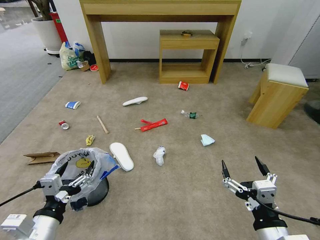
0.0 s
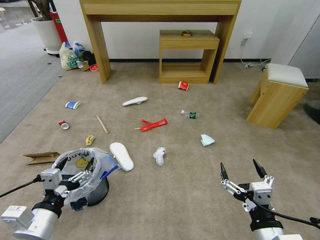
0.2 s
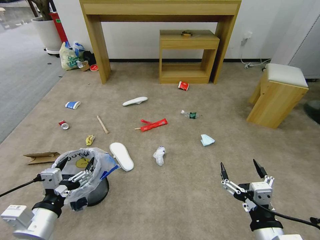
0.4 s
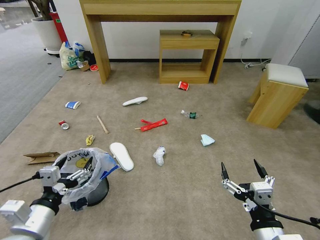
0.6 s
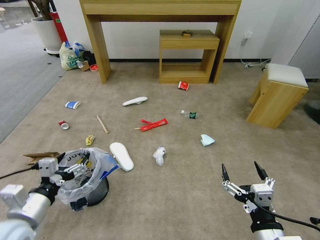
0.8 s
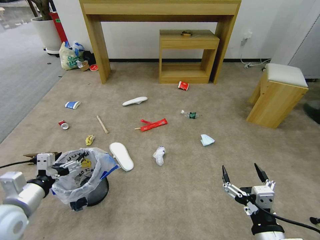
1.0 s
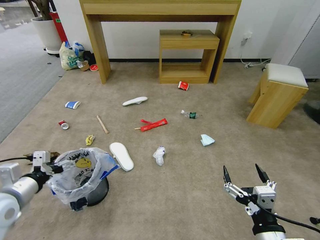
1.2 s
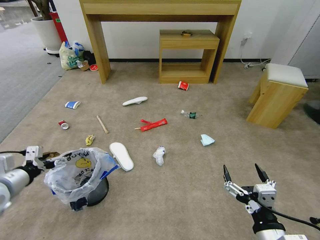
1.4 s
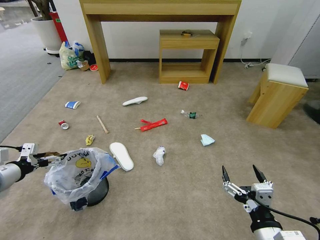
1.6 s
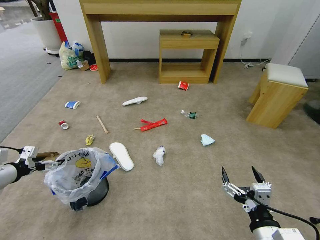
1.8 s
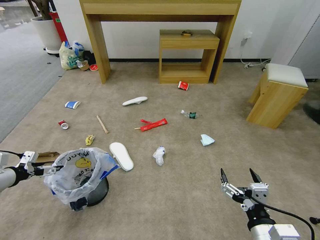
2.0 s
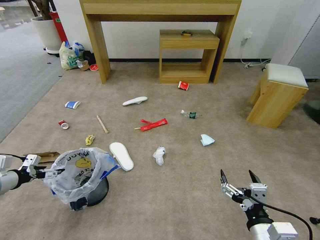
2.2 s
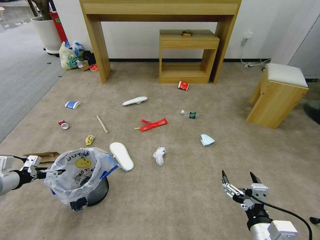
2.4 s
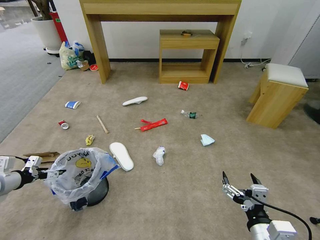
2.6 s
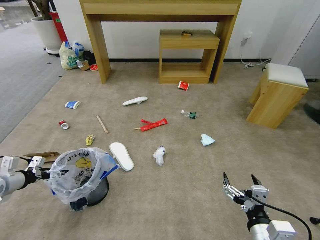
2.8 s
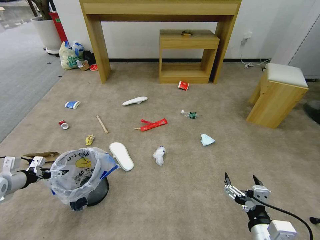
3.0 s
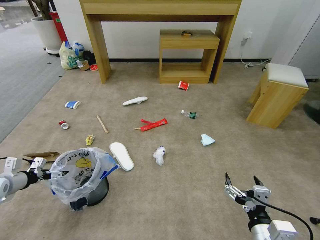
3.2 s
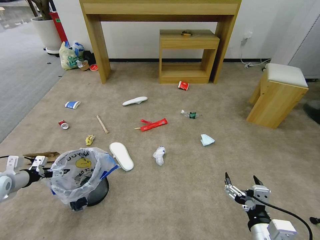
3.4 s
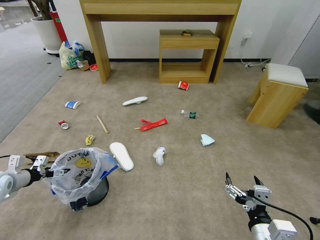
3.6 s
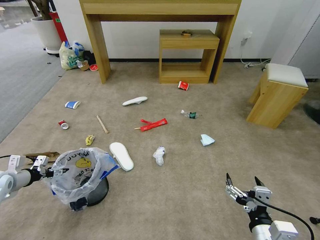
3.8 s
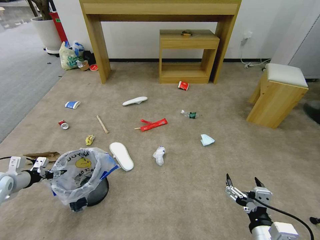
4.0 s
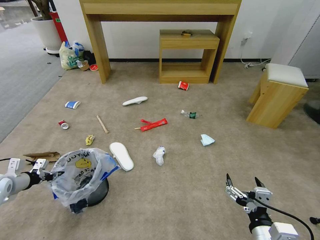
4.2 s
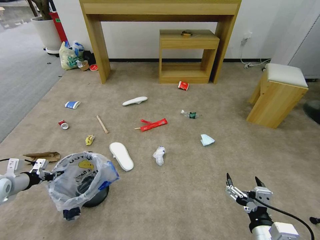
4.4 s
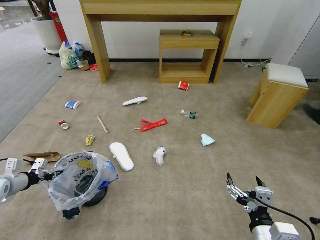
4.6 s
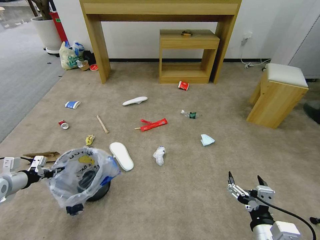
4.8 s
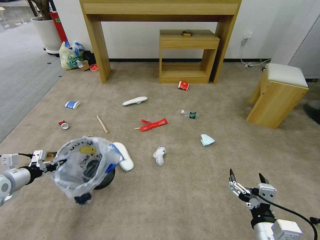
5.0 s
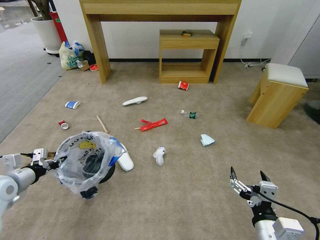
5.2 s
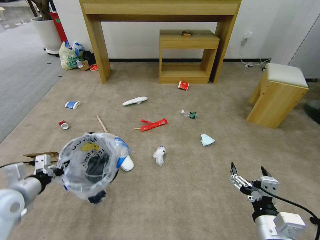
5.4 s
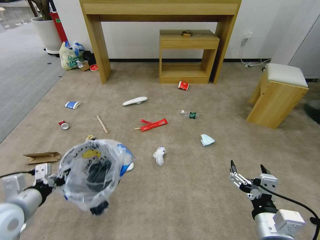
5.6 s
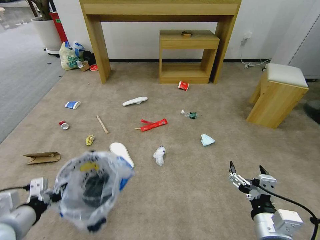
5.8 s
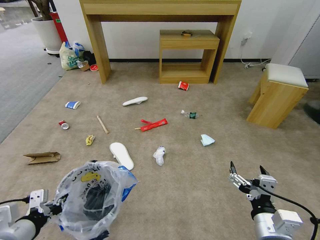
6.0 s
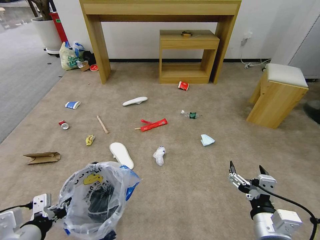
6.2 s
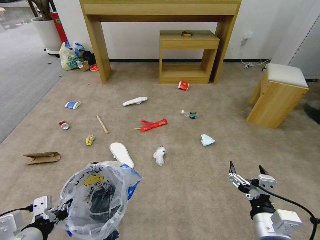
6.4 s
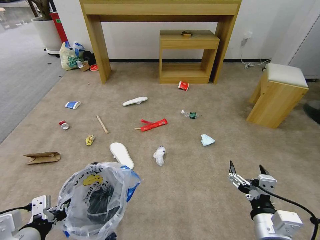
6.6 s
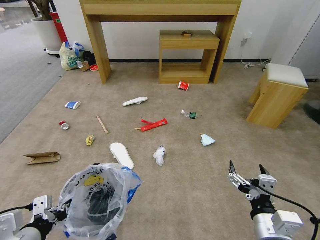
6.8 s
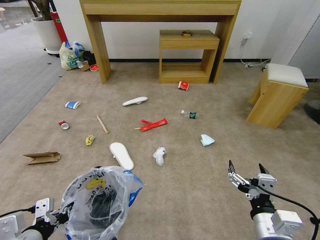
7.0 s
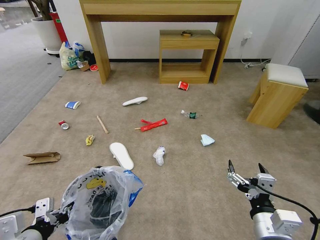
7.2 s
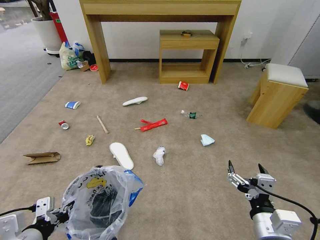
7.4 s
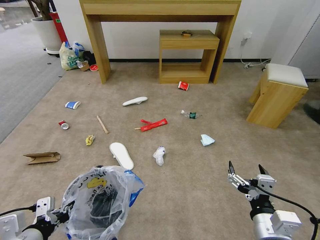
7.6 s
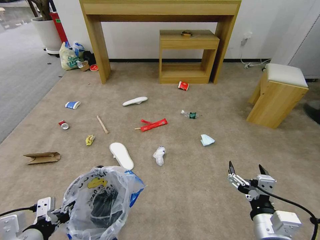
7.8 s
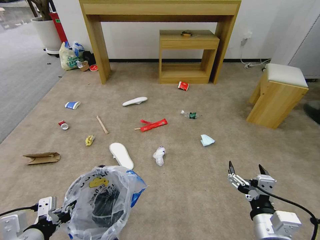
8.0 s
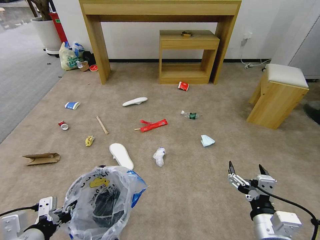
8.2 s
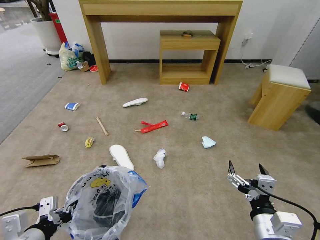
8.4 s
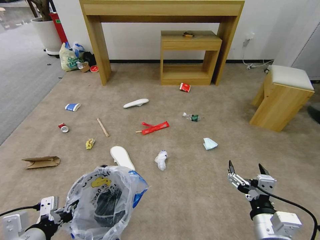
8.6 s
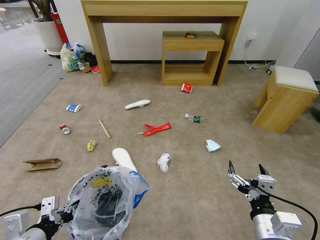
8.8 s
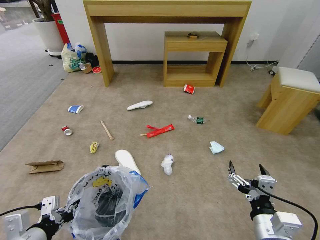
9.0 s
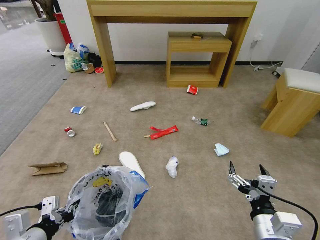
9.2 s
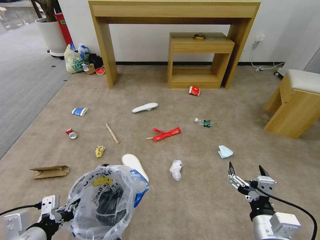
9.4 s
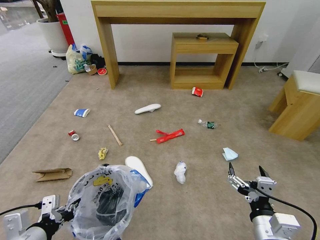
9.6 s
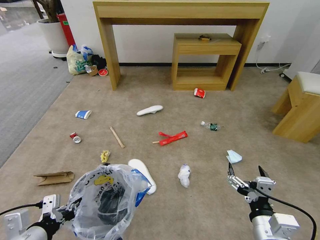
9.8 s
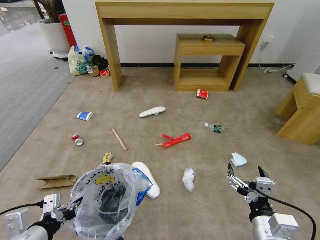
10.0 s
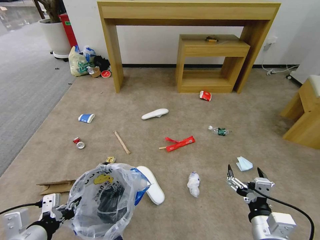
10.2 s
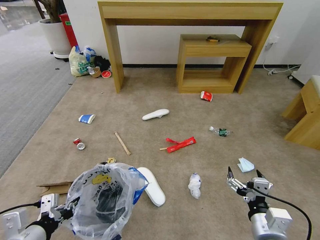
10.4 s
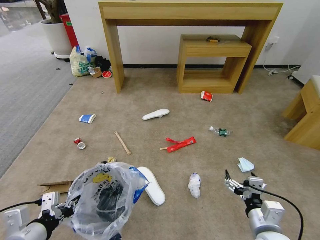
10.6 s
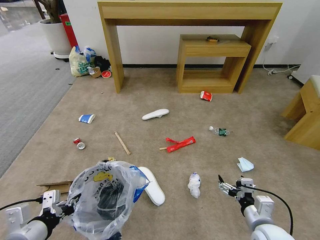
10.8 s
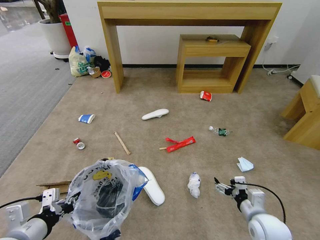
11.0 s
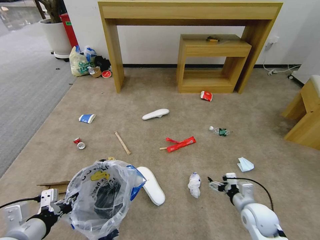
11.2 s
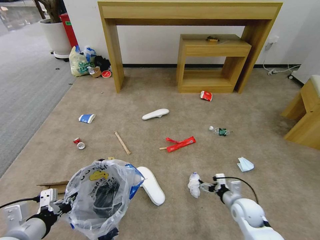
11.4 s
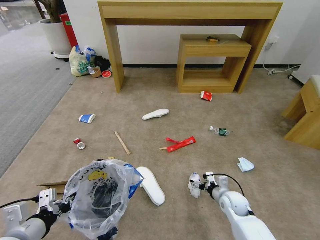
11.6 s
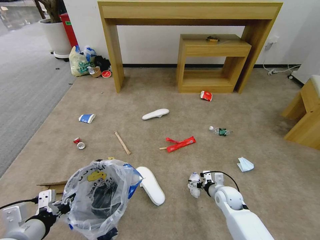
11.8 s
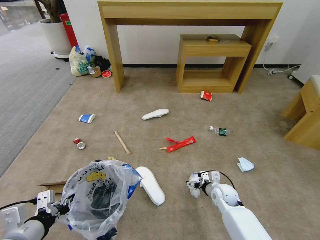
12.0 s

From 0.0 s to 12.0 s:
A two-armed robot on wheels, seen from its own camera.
Task of the whole recording: Pick up the trash bin and place the garbage on the floor into it.
From 1.6 s to 3.0 s: The left gripper goes roughly 10 cm downward and to the left.
From 3.0 s to 4.4 s: The left gripper closes its fingers.
From 4.4 s to 6.0 s: The left gripper shifts about 25 cm backward and to the right.
From 6.0 s to 7.6 s: The grippers stay close to where they were, moving slightly.
From 7.6 s to 9.0 s: Both grippers stay about where they are.
From 10.4 s to 12.0 s: The right gripper heads forward and downward, covering approximately 30 cm.

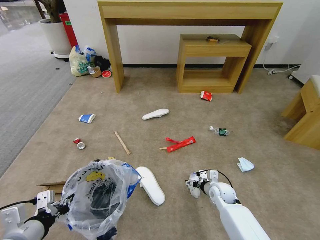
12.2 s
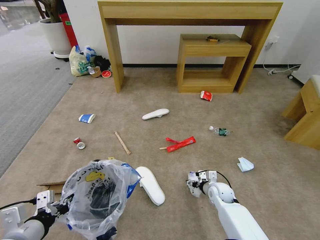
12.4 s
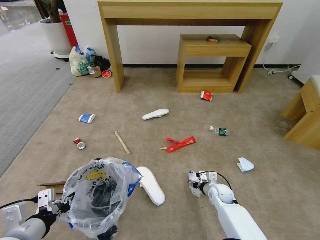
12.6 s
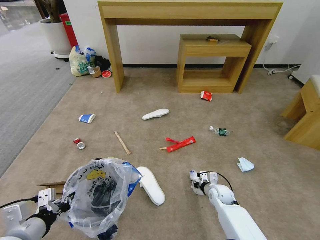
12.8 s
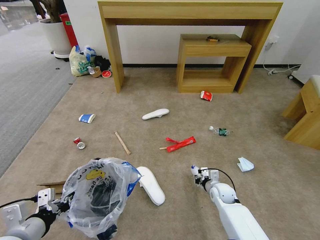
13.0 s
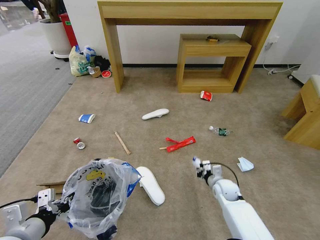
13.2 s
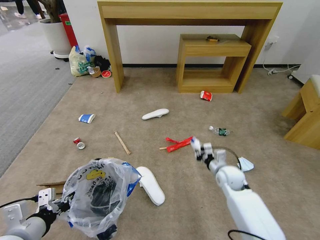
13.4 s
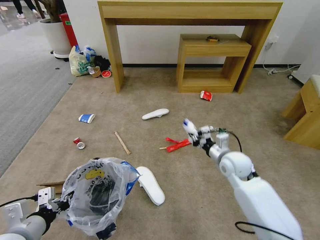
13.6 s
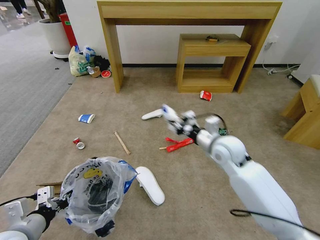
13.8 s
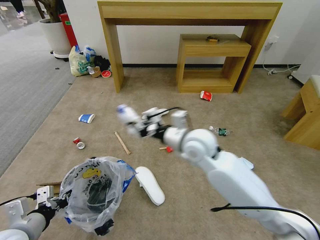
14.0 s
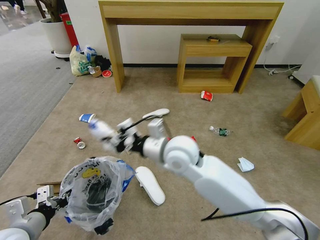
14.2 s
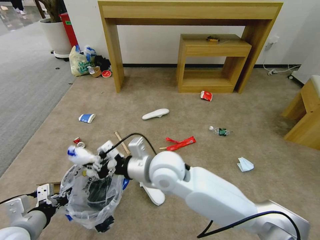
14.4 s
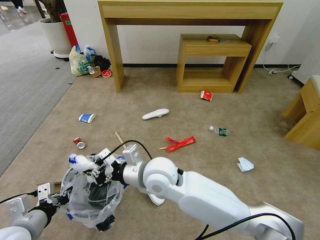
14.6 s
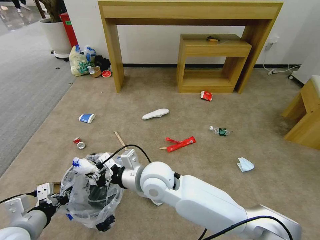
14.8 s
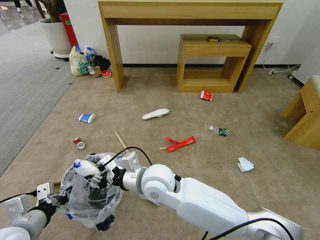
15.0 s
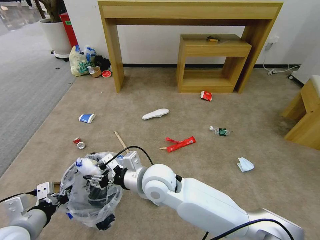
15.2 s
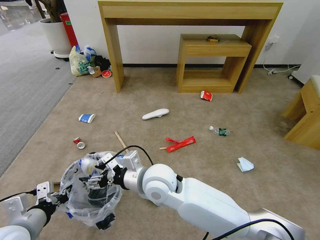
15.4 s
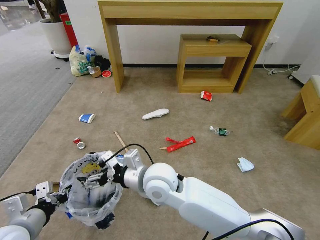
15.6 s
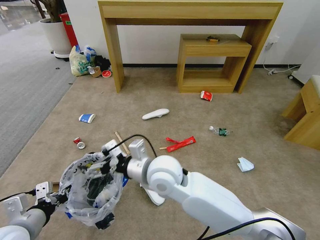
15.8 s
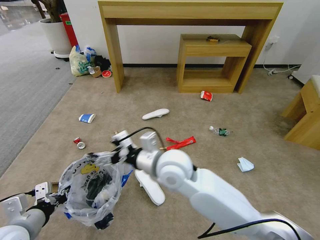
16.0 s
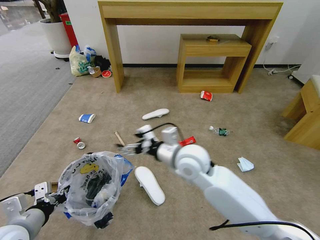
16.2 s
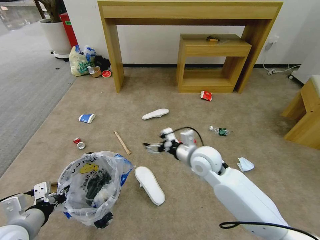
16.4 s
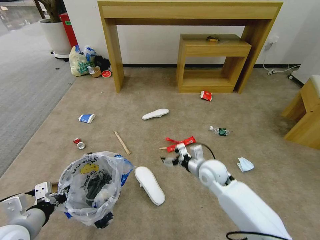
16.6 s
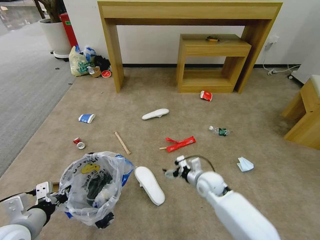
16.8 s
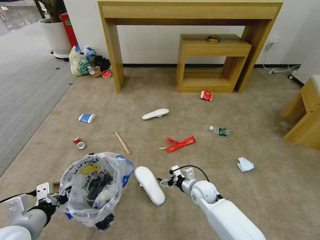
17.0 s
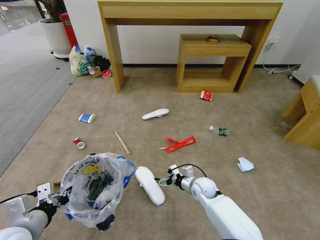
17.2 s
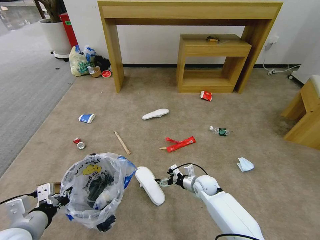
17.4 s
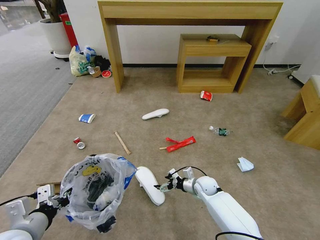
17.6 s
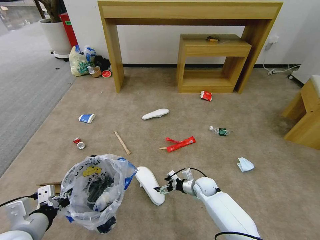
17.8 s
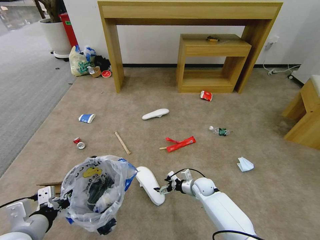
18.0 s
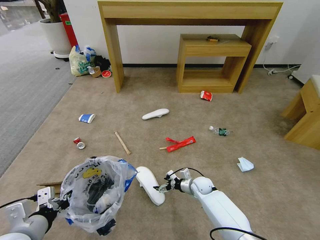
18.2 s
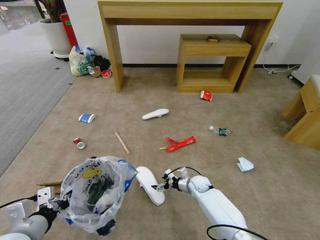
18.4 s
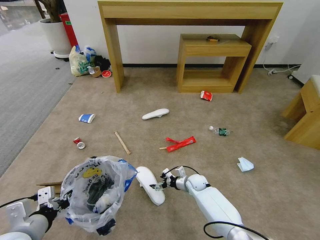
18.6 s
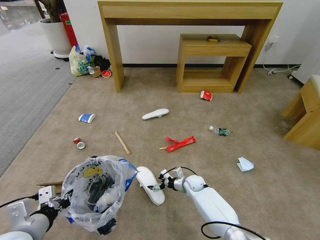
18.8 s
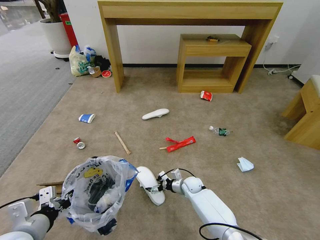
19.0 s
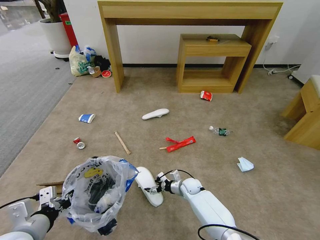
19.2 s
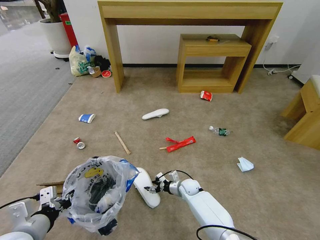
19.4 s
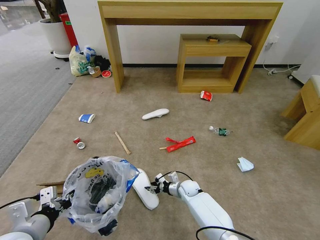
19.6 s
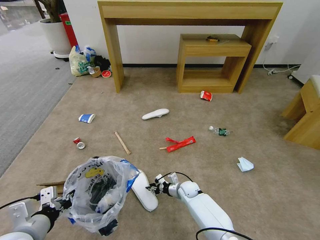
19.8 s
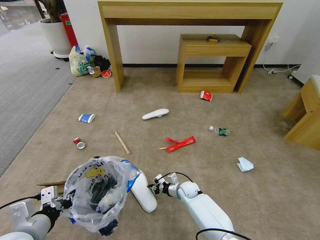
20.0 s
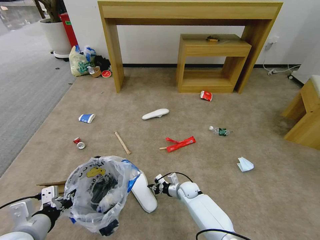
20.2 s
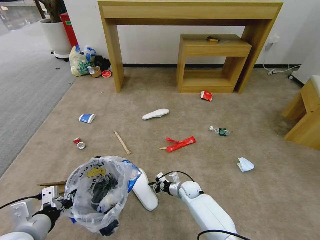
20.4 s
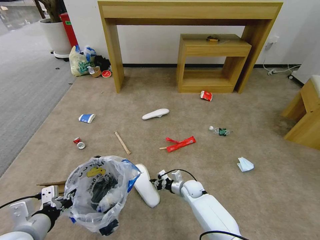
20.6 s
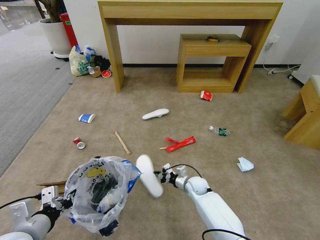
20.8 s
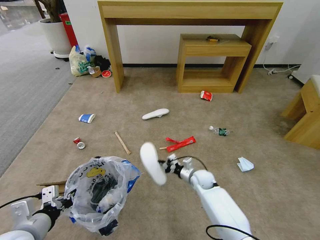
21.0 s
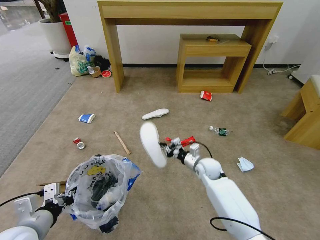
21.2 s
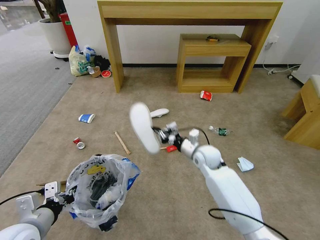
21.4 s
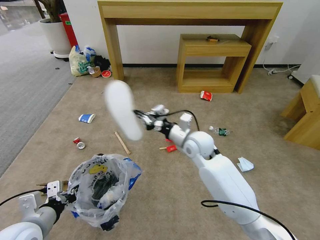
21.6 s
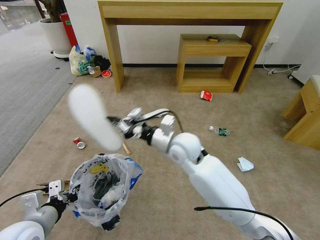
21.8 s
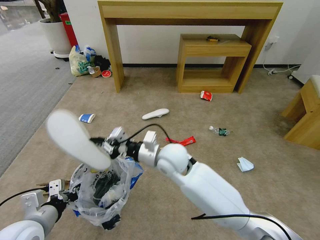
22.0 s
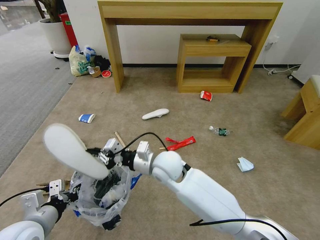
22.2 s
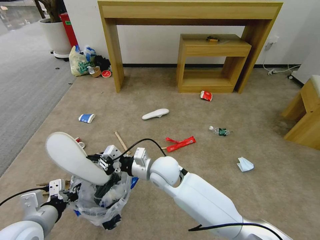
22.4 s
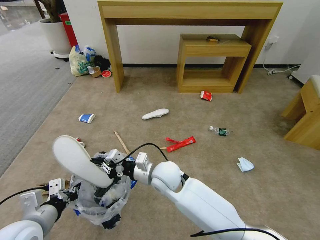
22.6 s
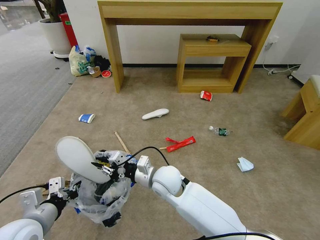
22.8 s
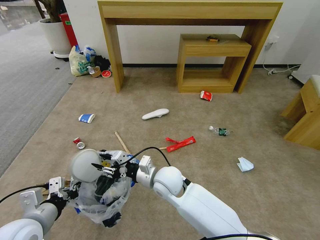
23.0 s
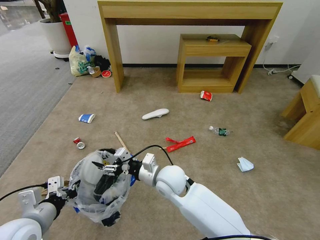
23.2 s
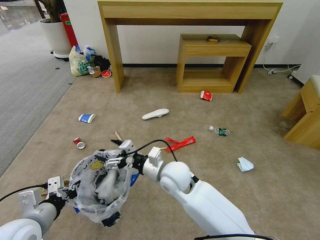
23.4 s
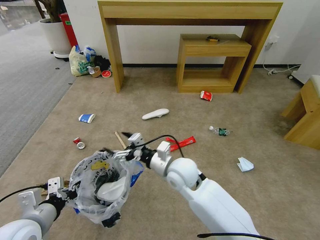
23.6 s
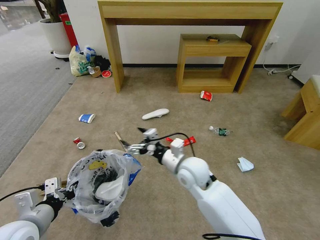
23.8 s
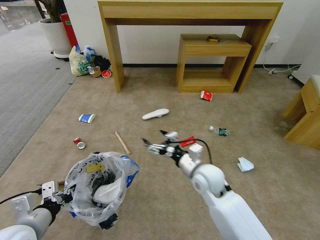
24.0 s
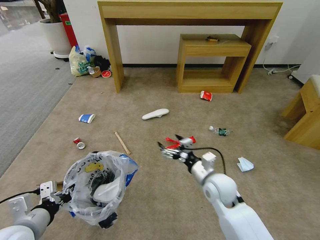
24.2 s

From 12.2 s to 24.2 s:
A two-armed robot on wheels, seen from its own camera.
Task of the whole recording: Pick up the trash bin and place the garbage on the floor into it.
From 12.2 s to 13.8 s: The right gripper goes some 25 cm upward, and closes.
From 13.8 s to 15.2 s: The right gripper goes about 25 cm to the left and backward, and opens its fingers.
From 15.2 s to 16.6 s: The right gripper travels to the right and downward by about 20 cm, and opens up.
From 16.6 s to 18.2 s: The right gripper goes roughly 20 cm downward.
From 18.2 s to 19.8 s: The right gripper shifts roughly 5 cm to the left, and closes.
From 19.8 s to 21.2 s: The right gripper is displaced upward and to the right by about 15 cm.
From 21.2 s to 22.6 s: The right gripper moves to the left, upward and backward, roughly 25 cm.
From 22.6 s to 24.2 s: The right gripper goes roughly 15 cm to the right, and opens up.
